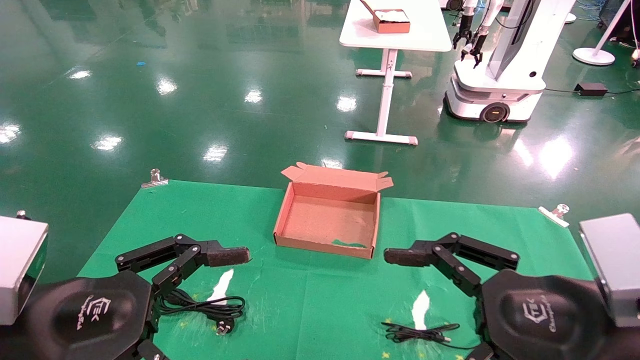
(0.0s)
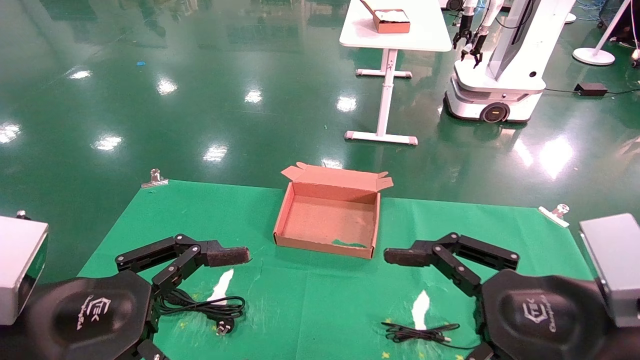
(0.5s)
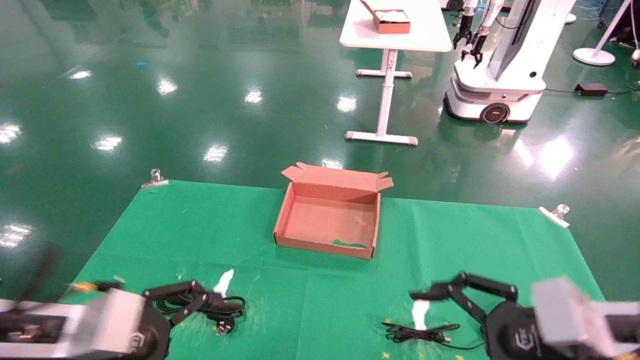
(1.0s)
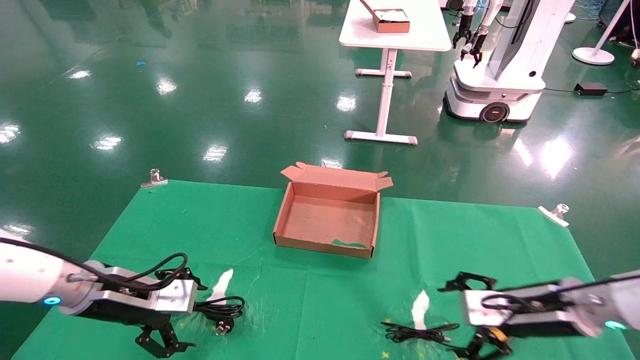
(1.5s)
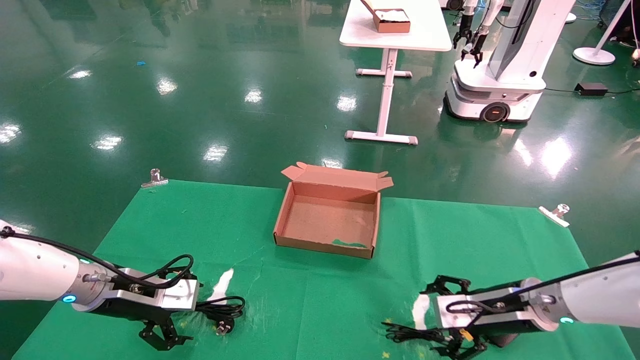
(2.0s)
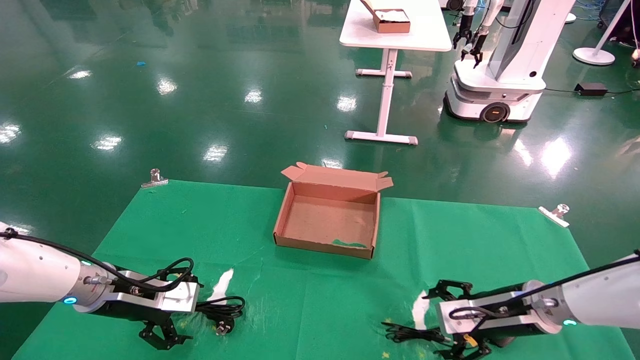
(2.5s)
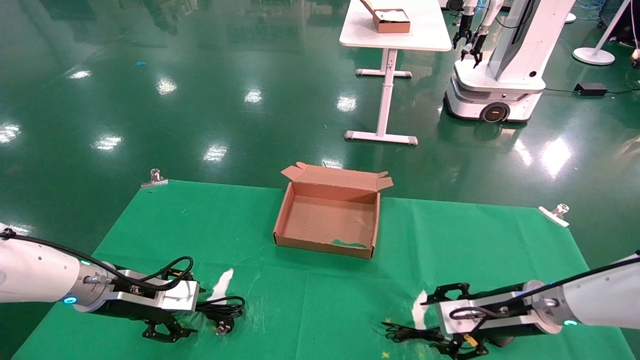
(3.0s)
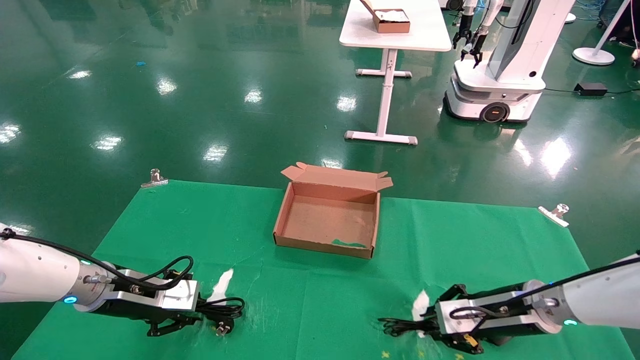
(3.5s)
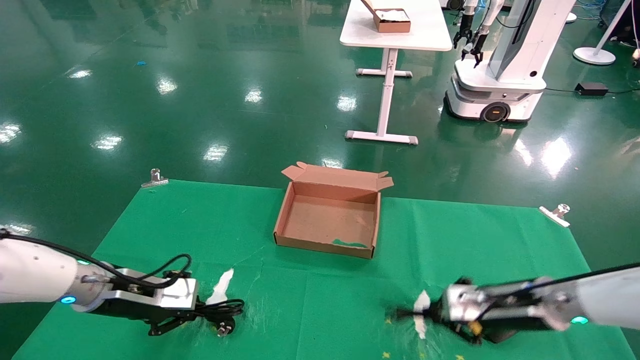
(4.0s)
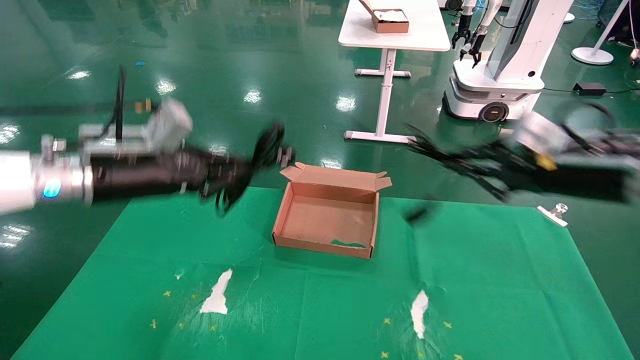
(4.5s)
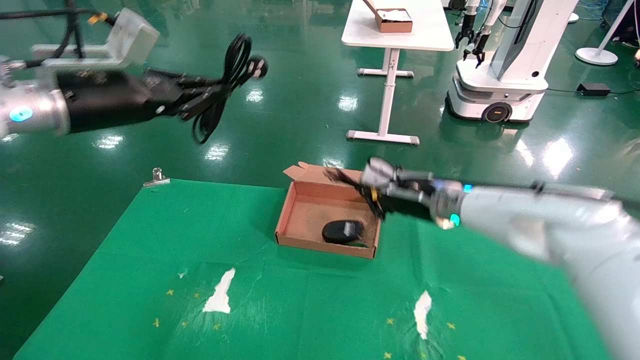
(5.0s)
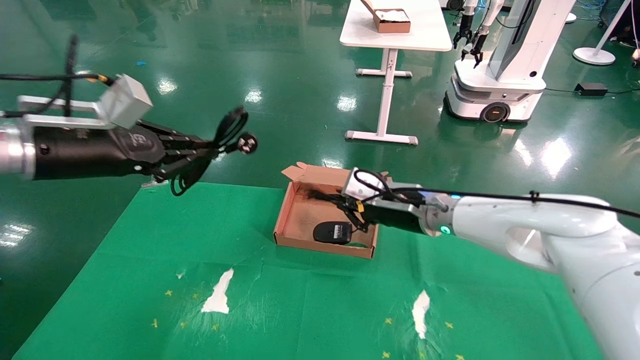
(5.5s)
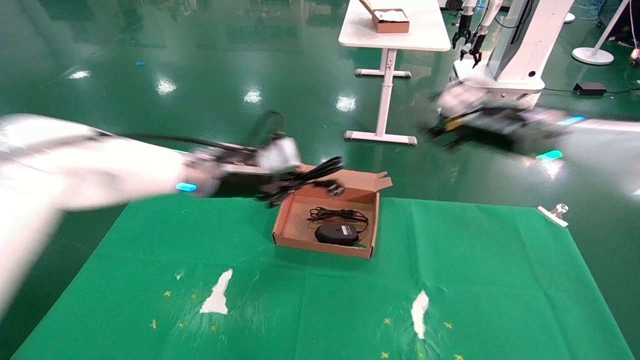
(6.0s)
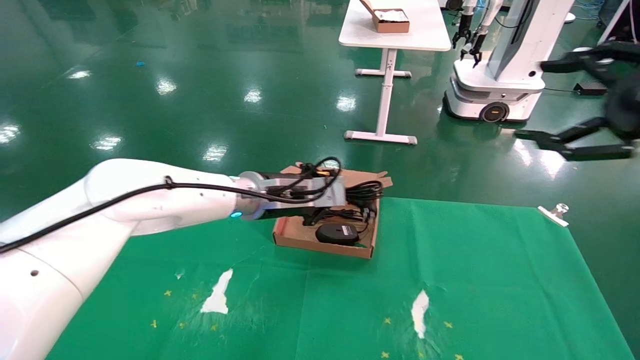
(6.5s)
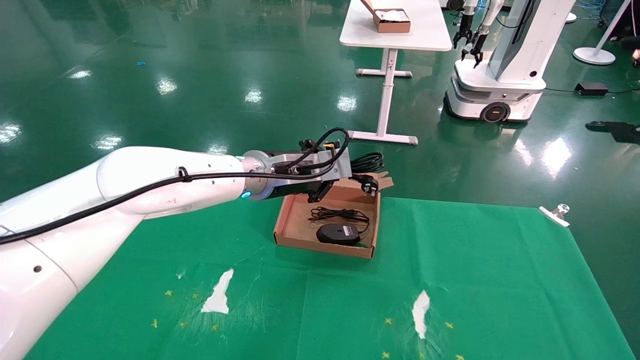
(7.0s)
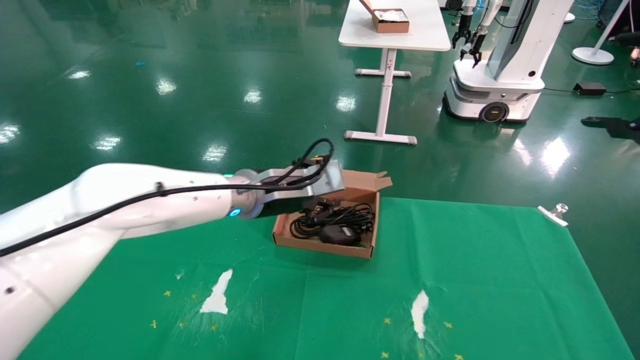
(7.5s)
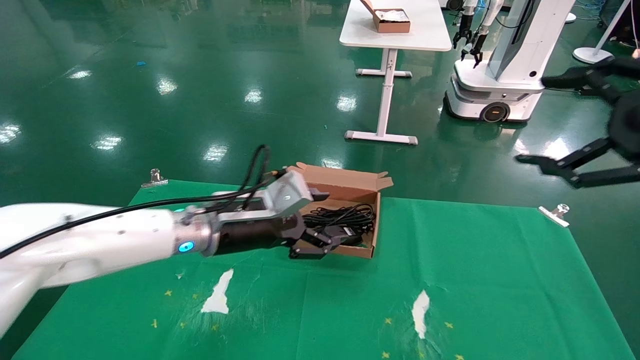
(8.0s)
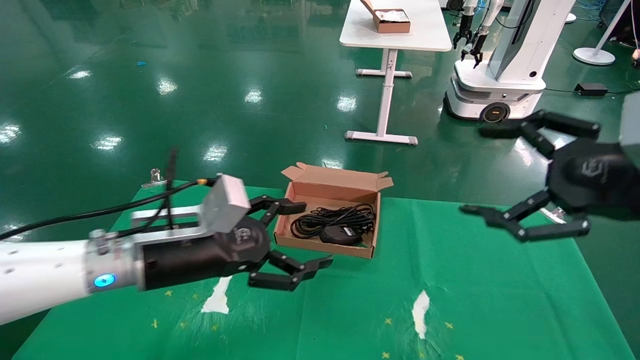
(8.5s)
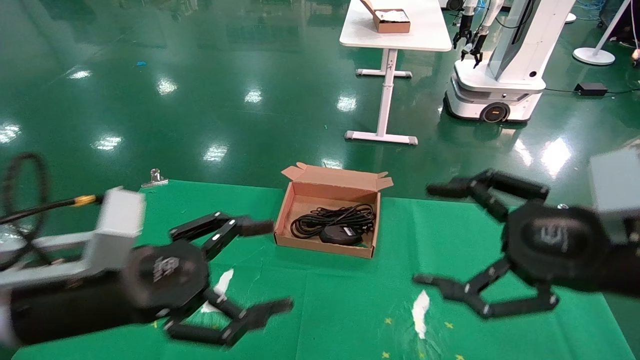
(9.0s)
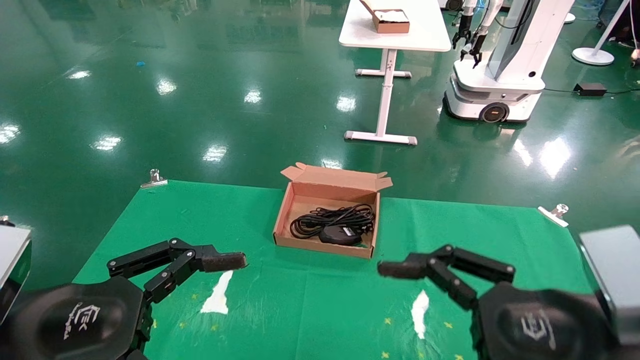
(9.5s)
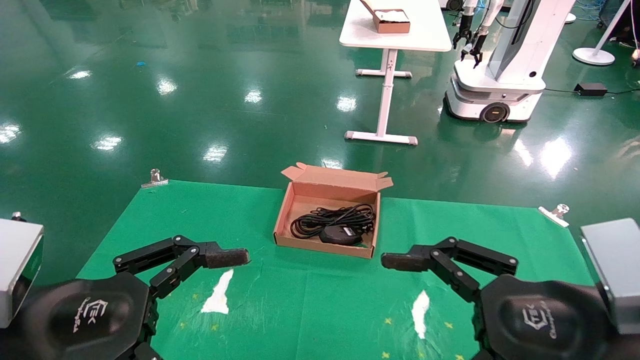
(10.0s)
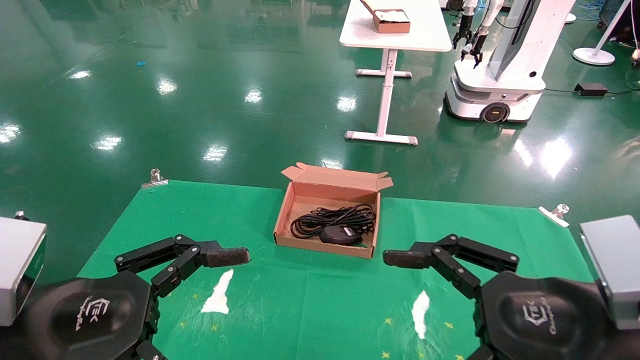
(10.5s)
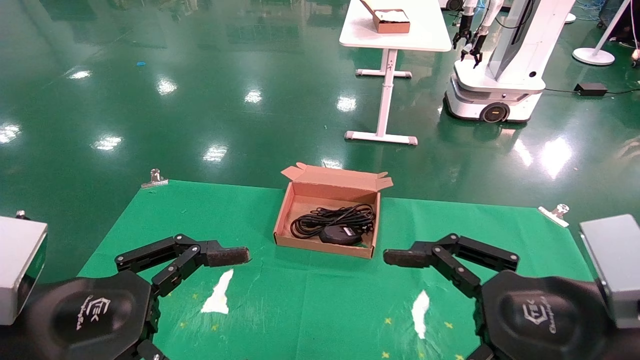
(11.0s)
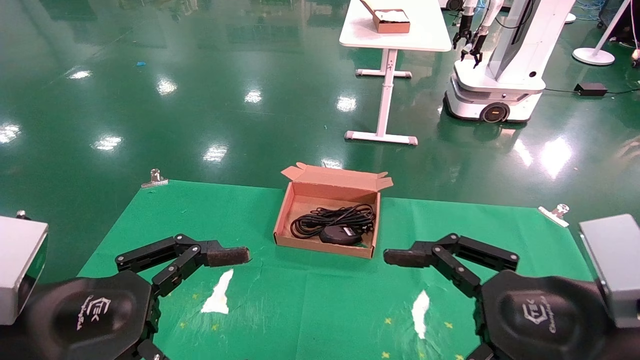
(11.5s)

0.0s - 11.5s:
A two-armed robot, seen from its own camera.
Step, 1.0s - 3.5s: Grab and lift both the mouse and power cord from the accessory packaging area at the same time.
Step, 4.0s - 7.5s: Place the mouse and power cord into the box.
0.0s - 2.0s: The left gripper moves forward, about 25 cm. Meanwhile the right gripper moves forward and downward, roughly 25 cm.
2.0s - 4.0s: The left gripper closes. The right gripper closes.
4.0s - 6.0s: The left gripper heads to the right and upward, covering about 20 cm; the right gripper moves up and down over about 20 cm, changing direction 2 times.
6.0s - 7.5s: The left gripper moves to the right, some 10 cm; the right gripper goes roughly 25 cm backward and to the right, and opens.
7.5s - 9.5s: The right gripper is displaced to the left and downward by some 25 cm. Meanwhile the left gripper heads backward and to the left, covering some 30 cm, and opens.
9.5s - 11.5s: The two grippers keep their place.

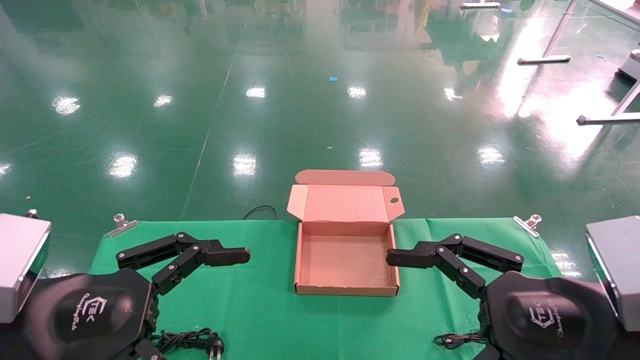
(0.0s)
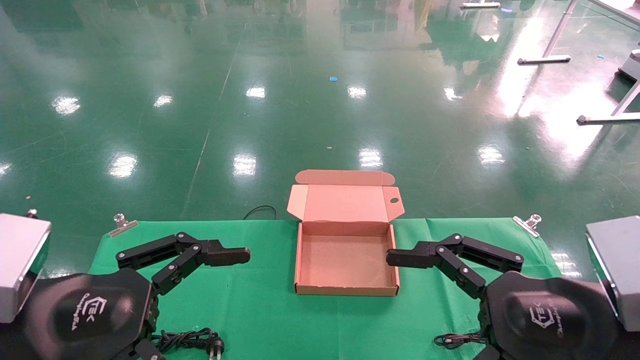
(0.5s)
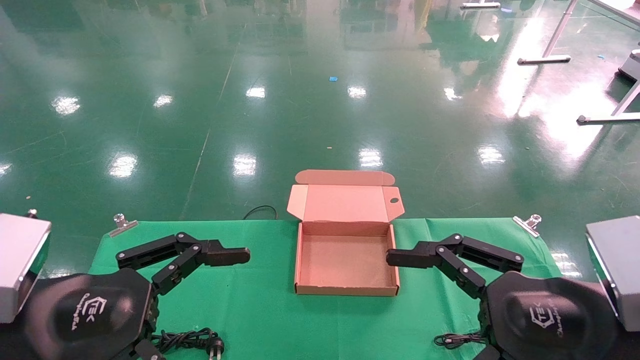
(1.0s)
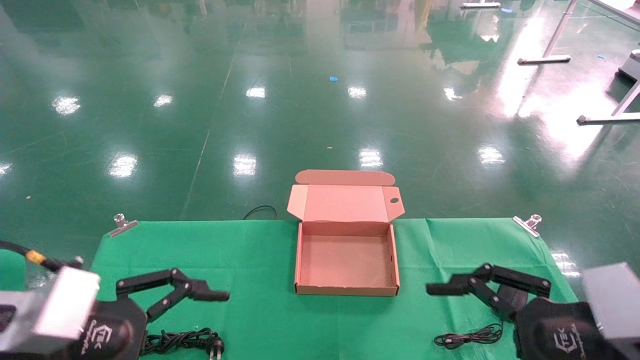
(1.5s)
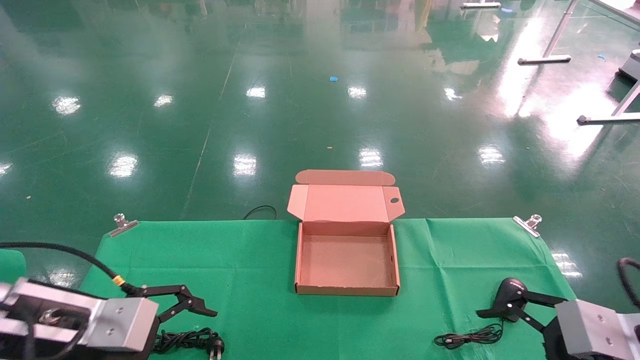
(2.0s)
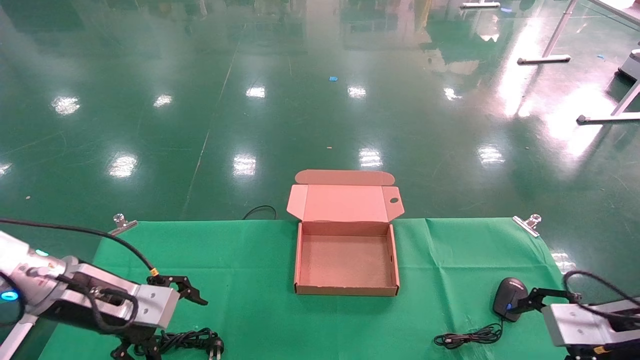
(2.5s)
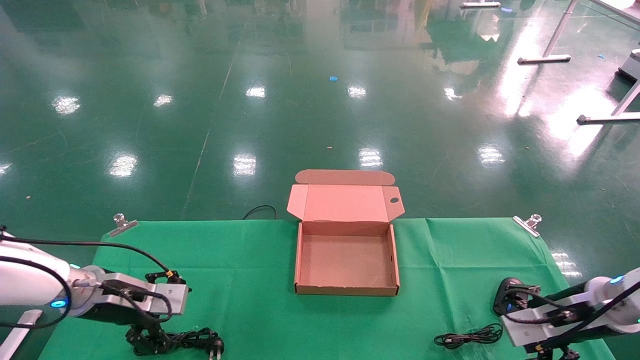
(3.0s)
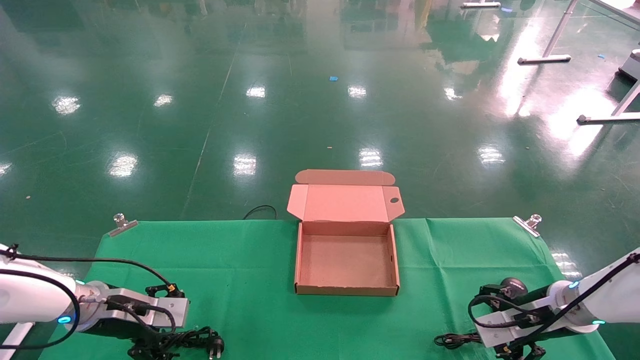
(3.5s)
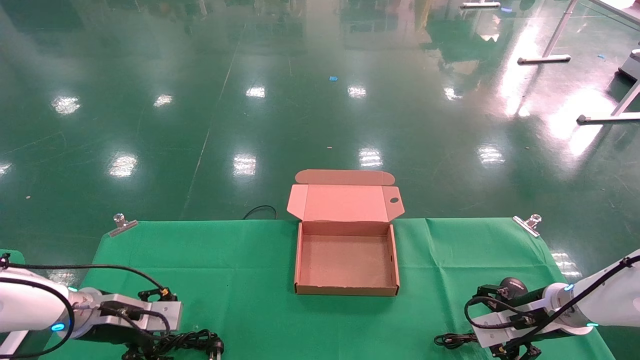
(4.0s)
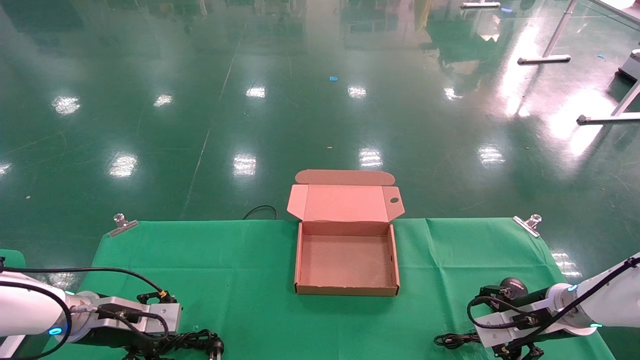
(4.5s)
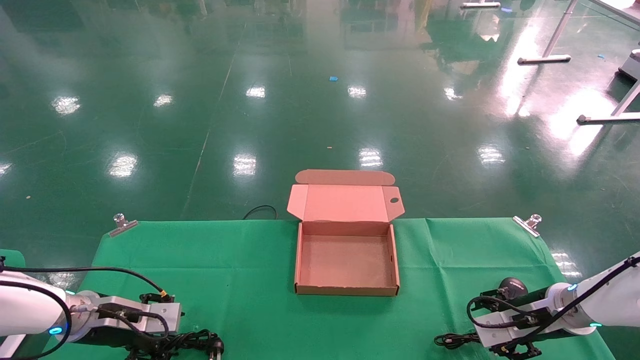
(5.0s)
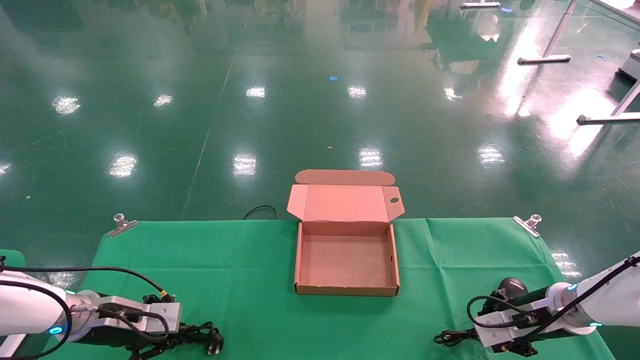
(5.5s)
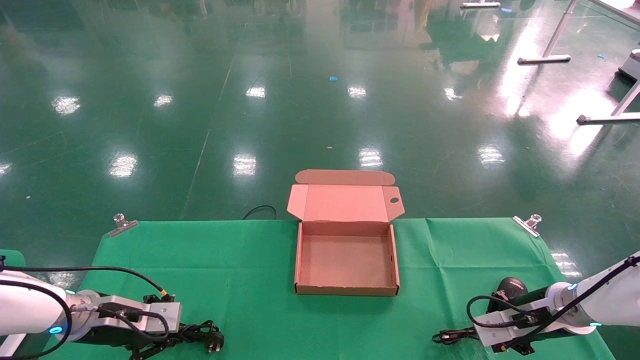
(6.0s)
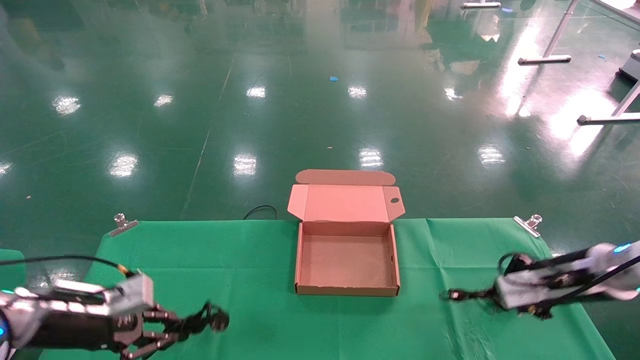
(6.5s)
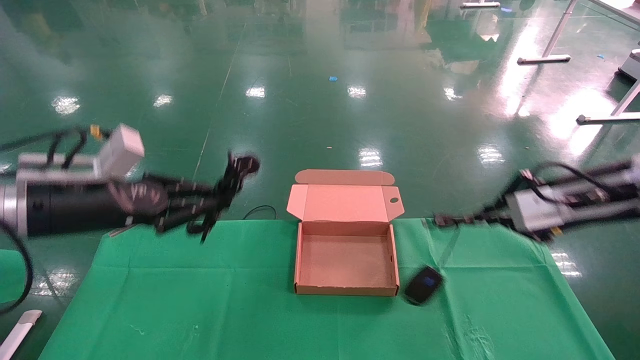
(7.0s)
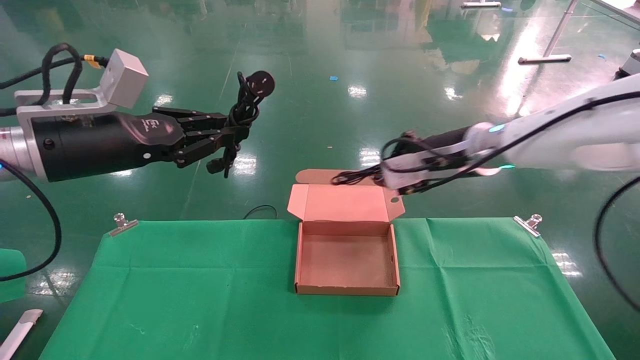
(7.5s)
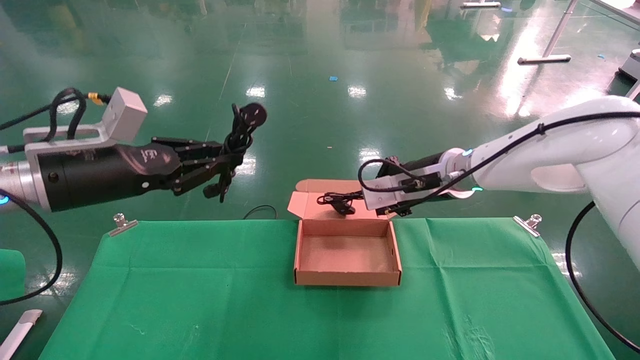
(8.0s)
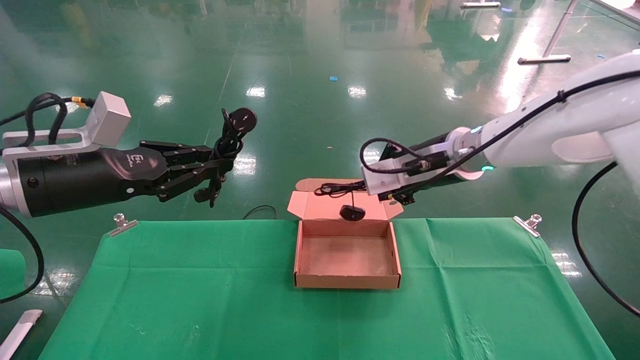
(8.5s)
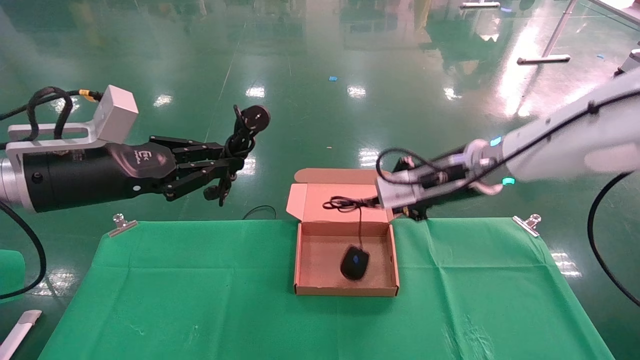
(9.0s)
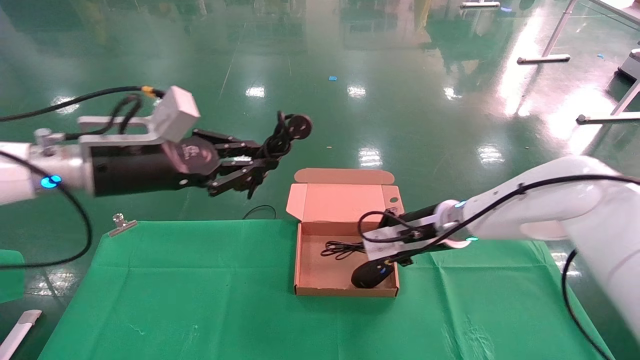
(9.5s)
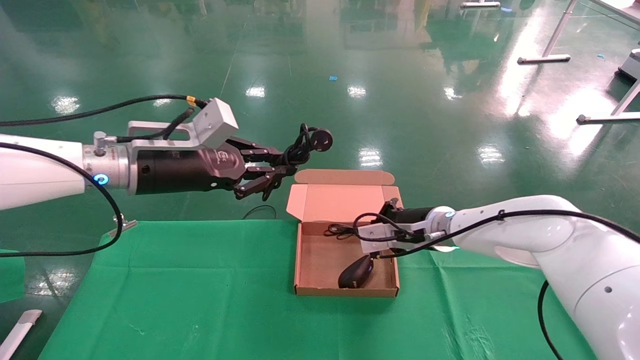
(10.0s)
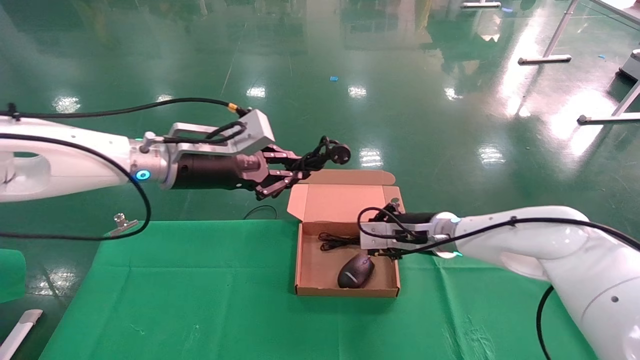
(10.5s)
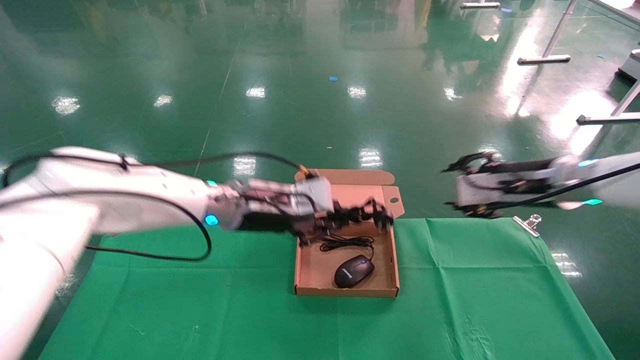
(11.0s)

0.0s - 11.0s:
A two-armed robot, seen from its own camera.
Step, 1.5s - 5.5s: Grab and lift both the mouse and power cord from the accessory packaging area at the same time.
0.0s - 2.0s: The right gripper goes some 15 cm to the right, forward and downward. Meanwhile the left gripper travels forward by about 10 cm.
2.0s - 3.5s: Both grippers move forward and downward, about 20 cm.
3.5s - 5.5s: The left gripper closes up. Meanwhile the right gripper closes its fingers.
5.5s - 7.5s: The left gripper heads upward, covering some 25 cm. Meanwhile the right gripper goes about 25 cm upward and to the left, and closes.
7.5s - 9.0s: The grippers stay close to where they were, moving slightly.
9.0s - 11.0s: The right gripper moves to the right, about 15 cm, and opens up. The left gripper shifts some 20 cm to the right and forward.
